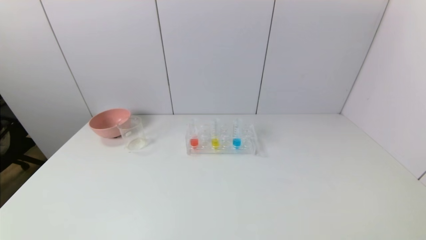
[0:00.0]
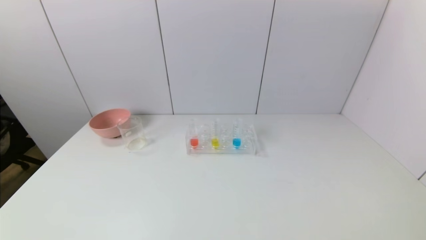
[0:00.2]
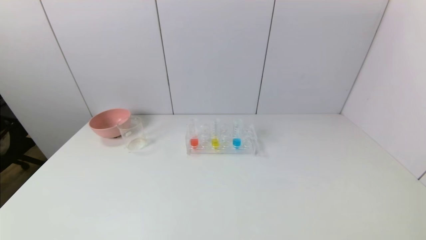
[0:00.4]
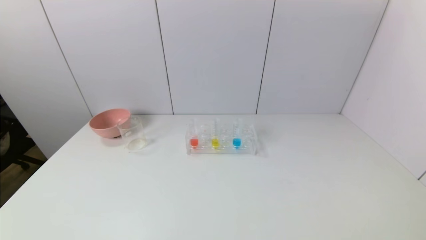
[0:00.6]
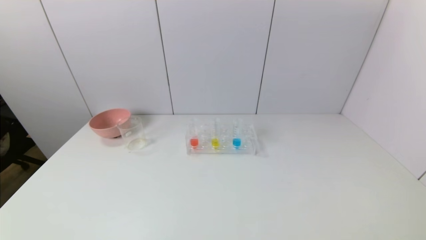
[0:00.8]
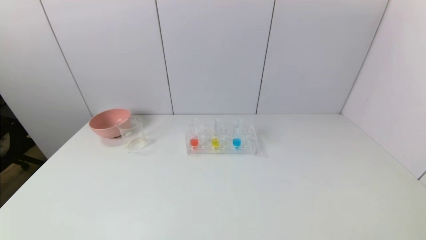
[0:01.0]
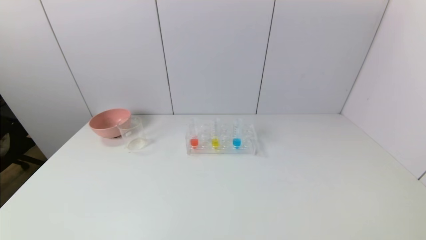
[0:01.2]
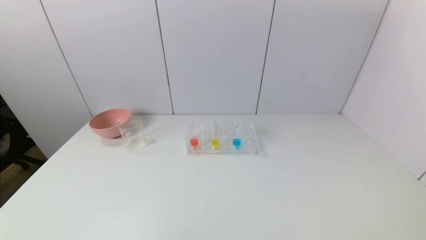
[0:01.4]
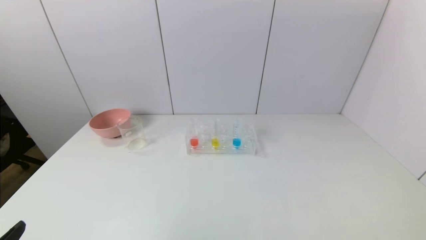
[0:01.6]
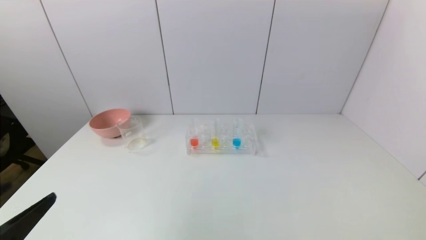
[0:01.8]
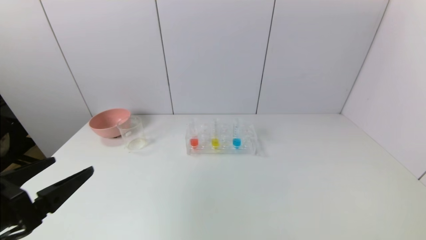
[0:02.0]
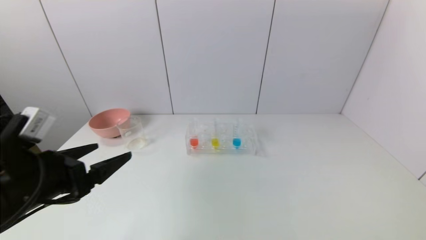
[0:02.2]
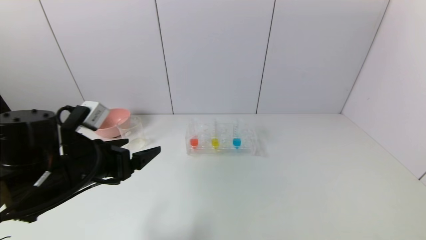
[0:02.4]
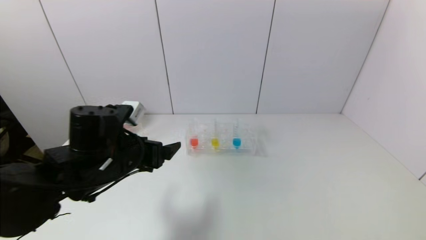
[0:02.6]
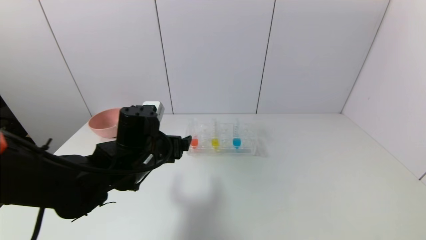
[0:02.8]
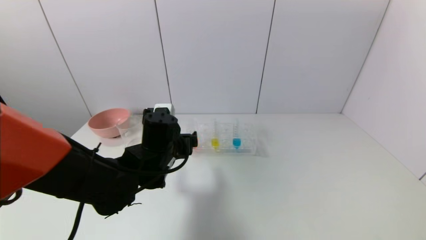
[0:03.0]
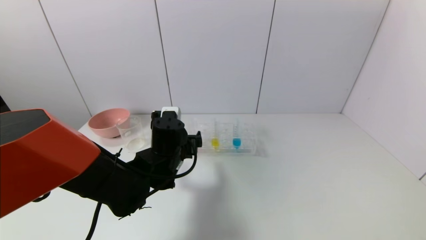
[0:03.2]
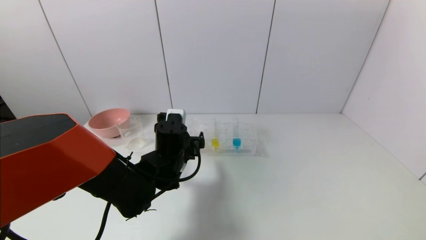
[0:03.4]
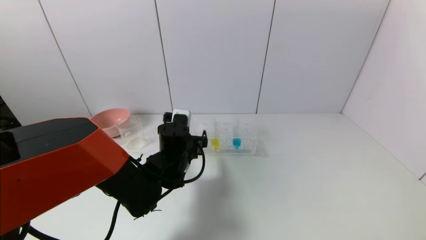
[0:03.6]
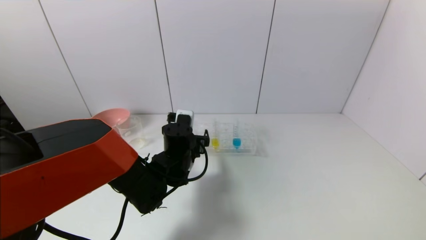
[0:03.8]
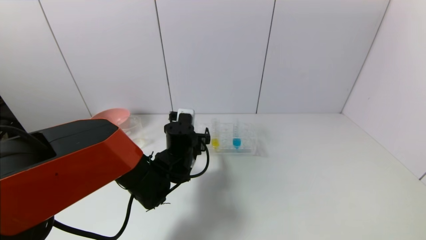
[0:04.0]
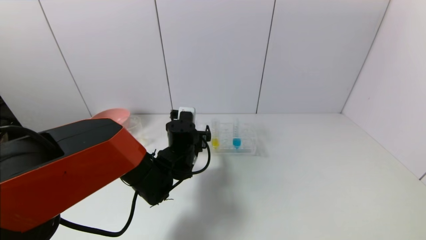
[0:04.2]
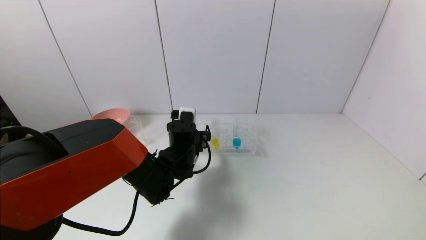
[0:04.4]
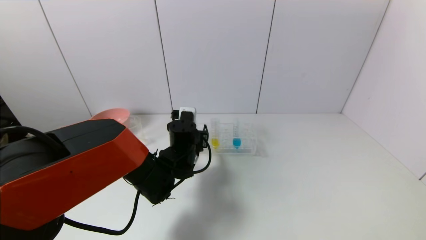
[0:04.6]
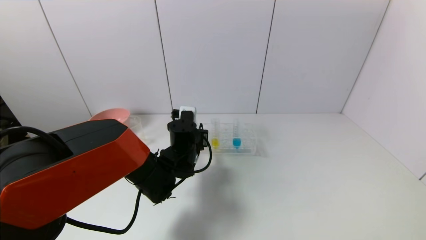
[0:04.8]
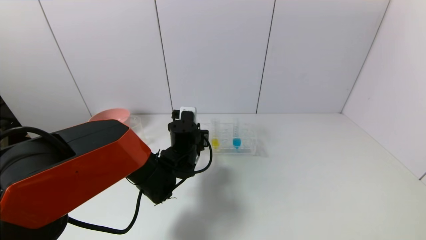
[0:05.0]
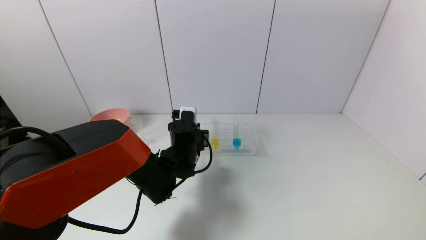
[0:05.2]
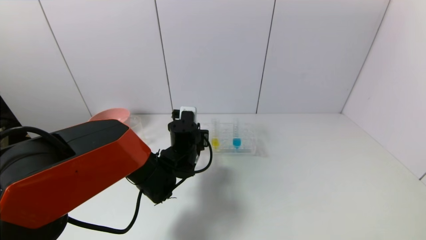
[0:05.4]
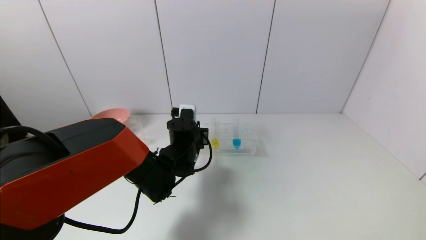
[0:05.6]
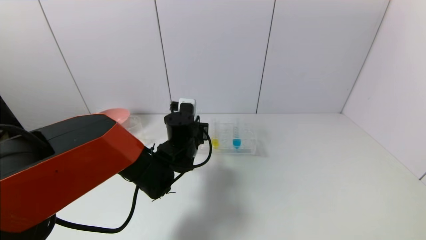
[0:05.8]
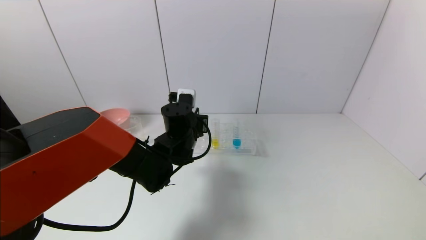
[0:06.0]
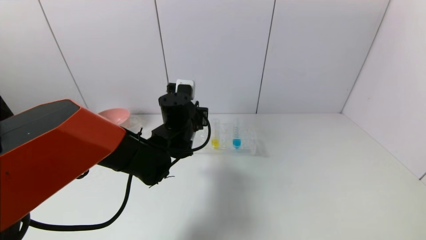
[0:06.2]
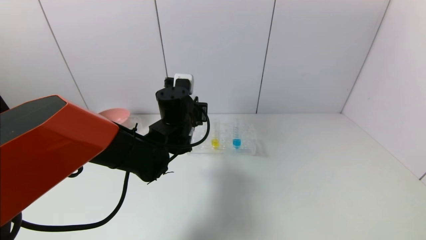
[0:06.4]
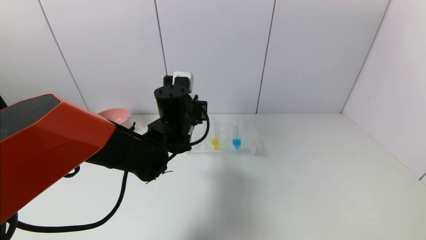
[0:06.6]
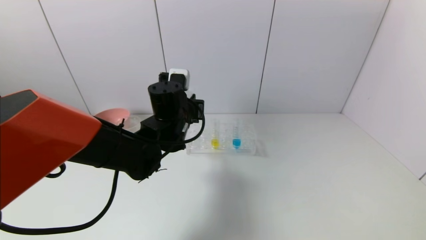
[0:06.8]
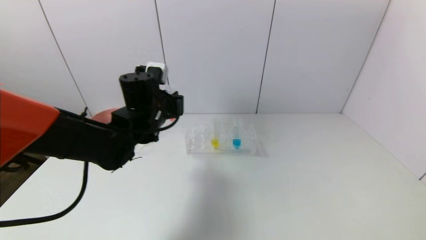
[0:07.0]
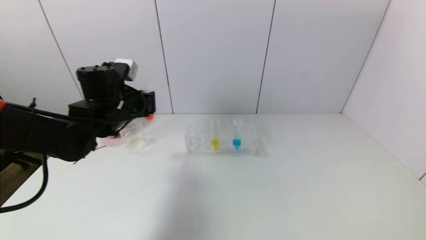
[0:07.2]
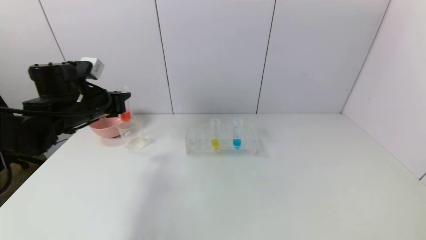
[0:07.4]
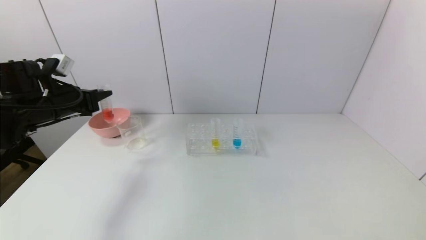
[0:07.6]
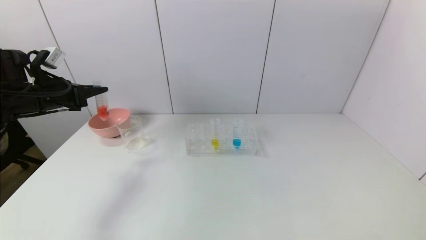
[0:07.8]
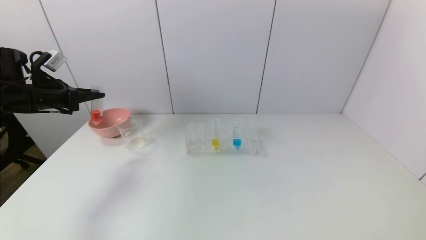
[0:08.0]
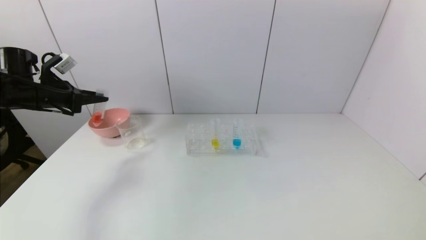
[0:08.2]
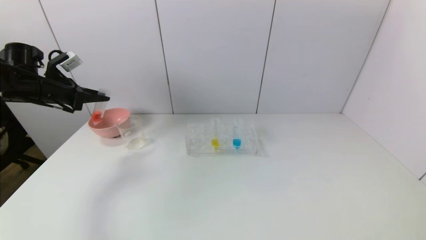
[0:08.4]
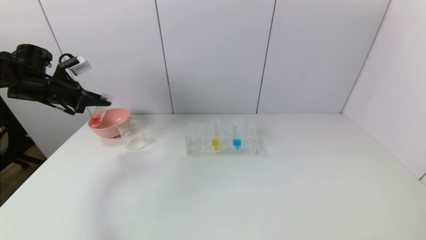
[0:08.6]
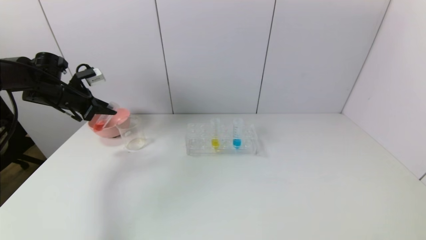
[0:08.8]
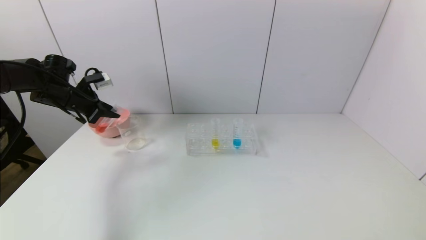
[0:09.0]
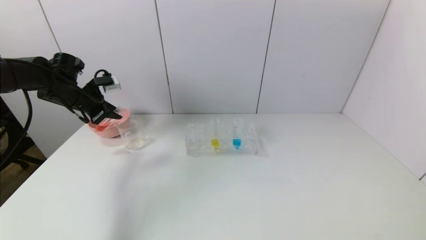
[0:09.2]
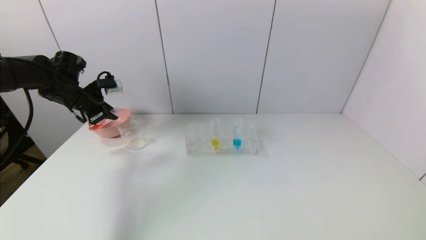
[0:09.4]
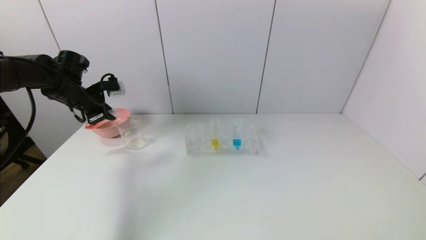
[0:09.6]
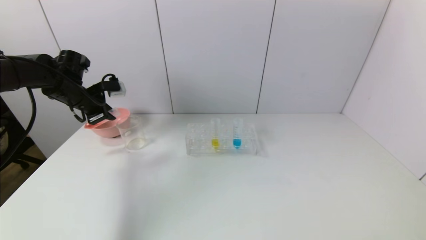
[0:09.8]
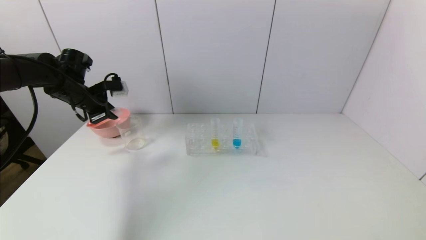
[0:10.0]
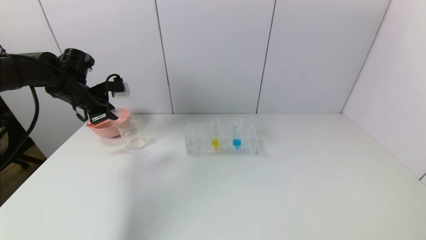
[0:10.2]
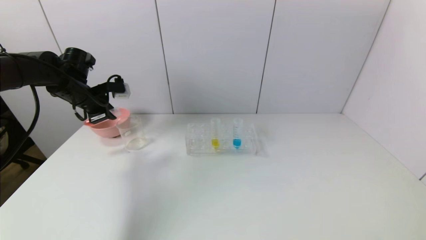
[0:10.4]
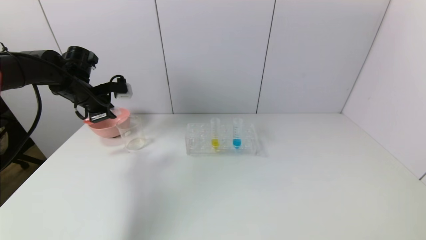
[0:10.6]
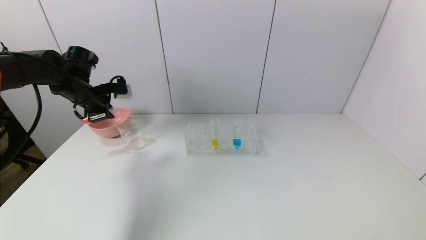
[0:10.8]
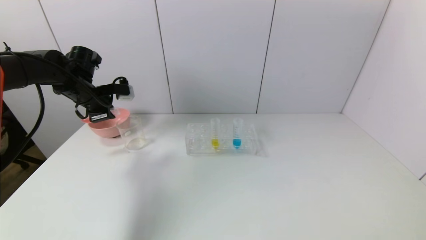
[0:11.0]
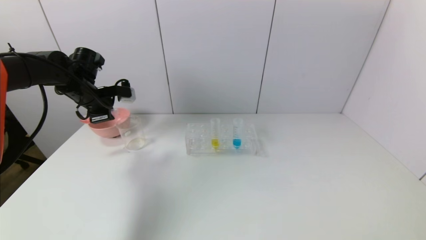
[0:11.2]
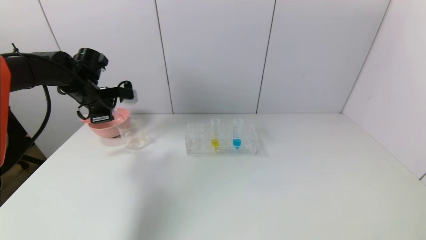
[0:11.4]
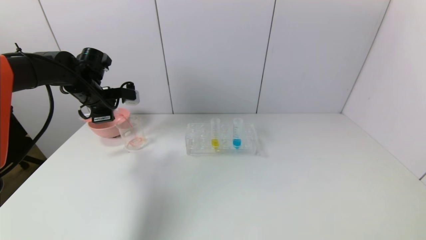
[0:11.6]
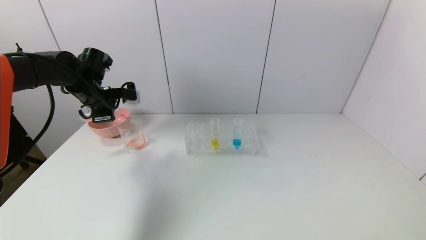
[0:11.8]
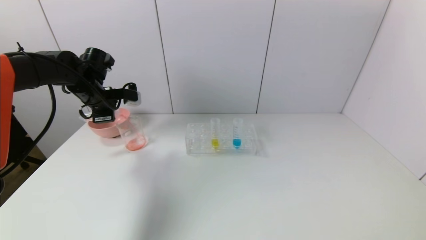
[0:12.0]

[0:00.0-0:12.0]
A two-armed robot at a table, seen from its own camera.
Task of the whole recording: pick up the test tube with yellow pigment and the test tube with red pigment by grippers and pour them into the beaker.
Step, 0:00.0 to 0:05.0: Grasp the red reagent with the left gripper.
0:01.6 to 0:03.0: The left gripper shifts about 35 cm forward and to the right.
0:03.0 to 0:04.4: The left gripper shifts about 5 cm forward.
0:04.4 to 0:06.0: The left gripper closes its fingers.
0:06.0 to 0:07.6: The left gripper travels to the left by some 30 cm.
0:07.6 to 0:09.0: The left gripper travels forward by approximately 10 cm.
0:10.4 to 0:12.0: The grippers make only small movements.

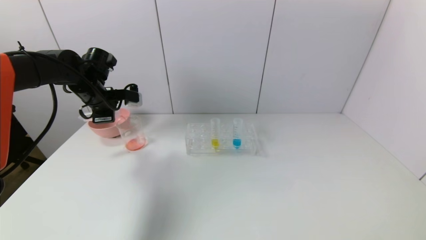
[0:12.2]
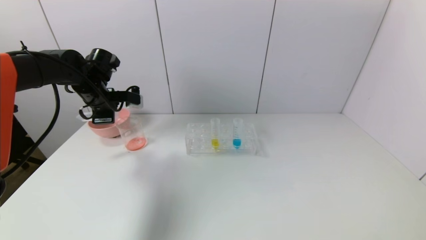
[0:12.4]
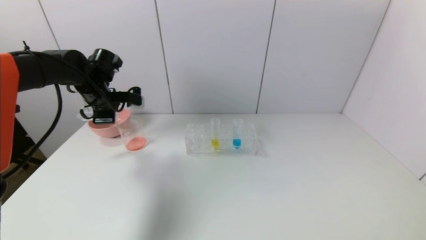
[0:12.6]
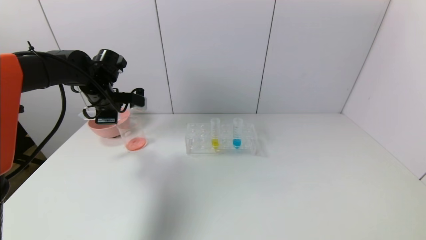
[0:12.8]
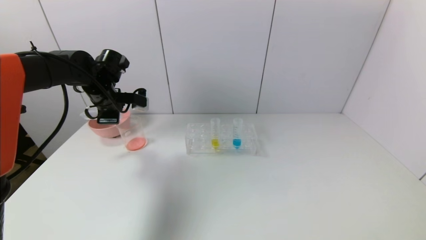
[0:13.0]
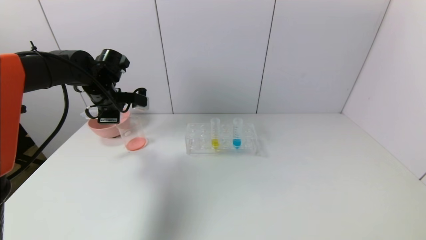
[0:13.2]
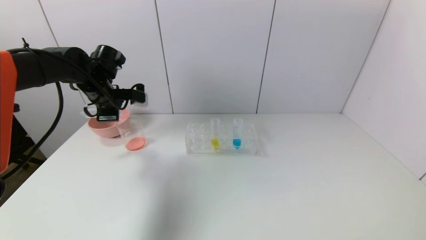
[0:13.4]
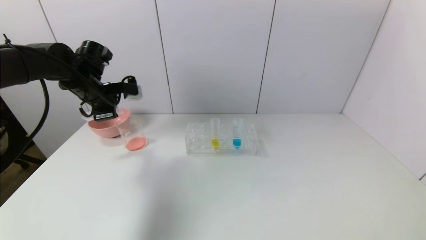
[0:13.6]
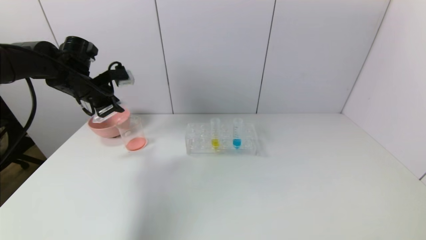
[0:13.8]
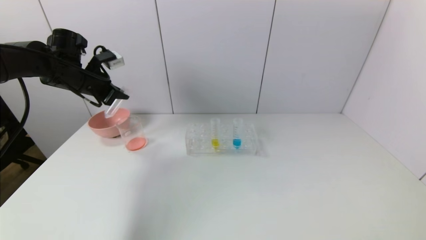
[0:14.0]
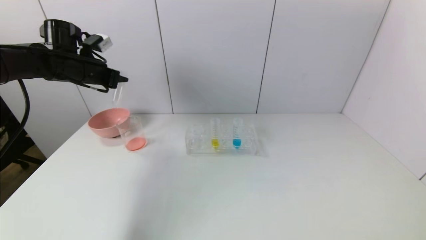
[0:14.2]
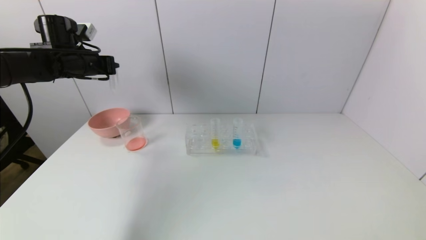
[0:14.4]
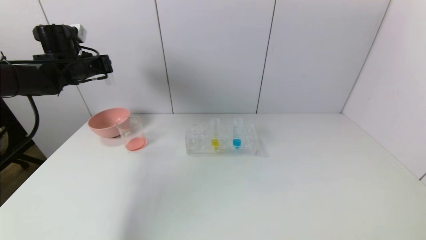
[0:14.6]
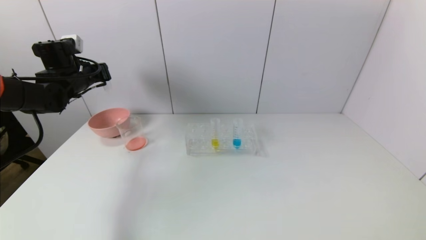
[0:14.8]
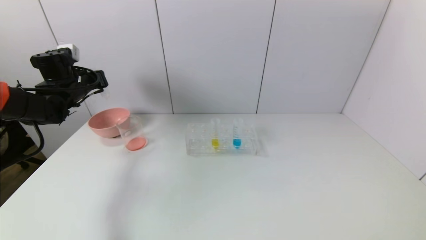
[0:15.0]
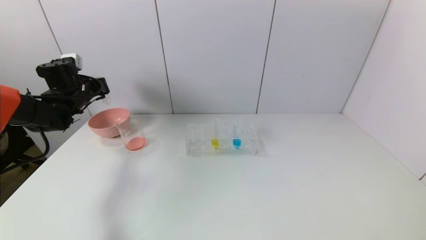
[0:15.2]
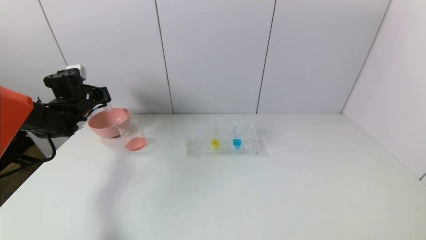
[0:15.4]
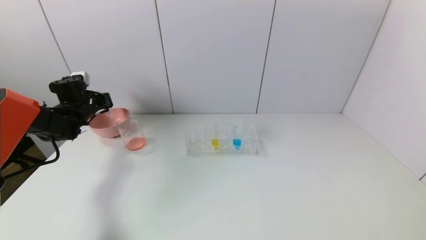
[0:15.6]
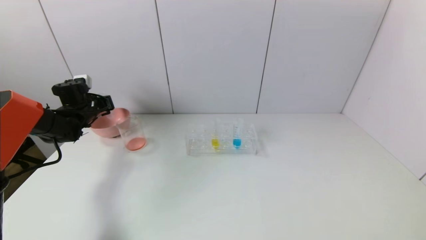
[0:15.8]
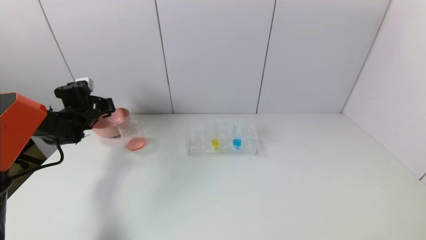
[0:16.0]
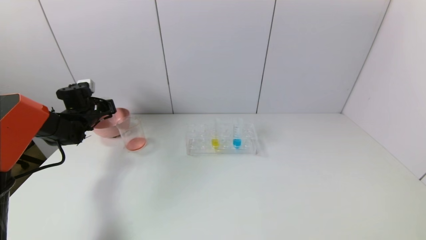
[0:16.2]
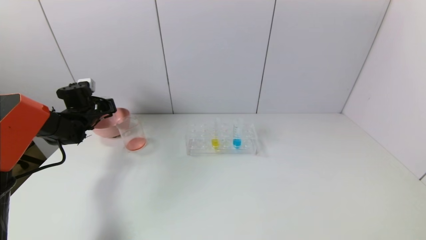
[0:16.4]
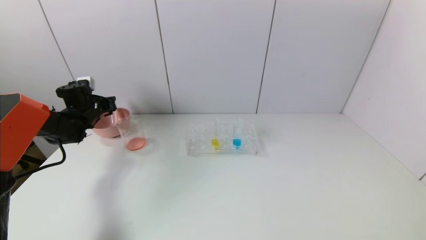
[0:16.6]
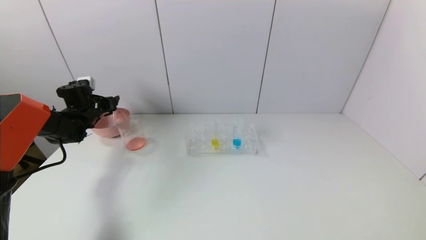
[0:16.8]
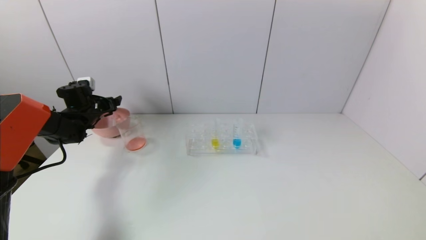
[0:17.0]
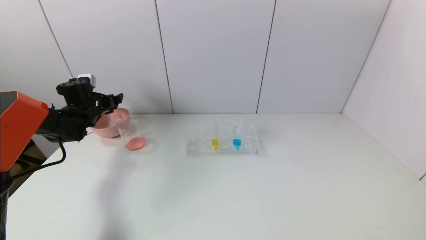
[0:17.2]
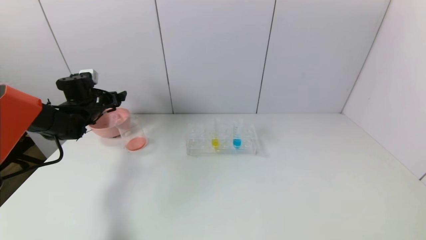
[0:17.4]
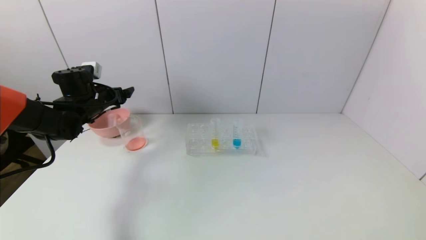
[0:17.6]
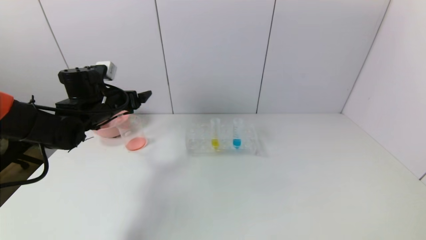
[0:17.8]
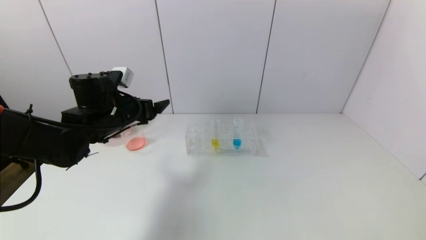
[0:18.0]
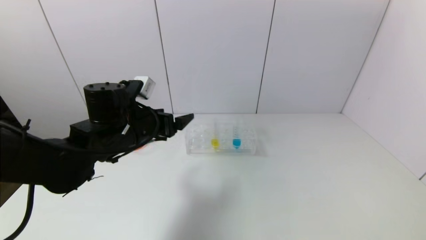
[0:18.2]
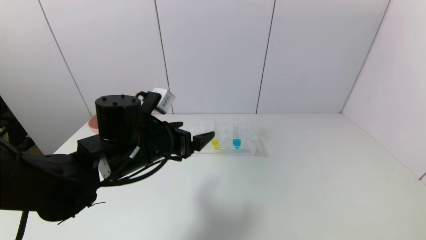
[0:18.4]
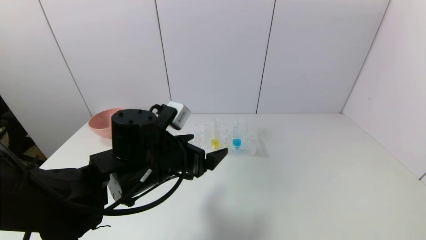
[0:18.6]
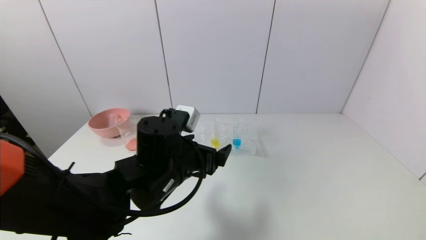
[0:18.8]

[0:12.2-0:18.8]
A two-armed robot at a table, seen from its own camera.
Task of the whole recording: pick up the test tube with yellow pigment and the test tube with red pigment by grippers and pour them into the beaker.
Step, 0:13.2 to 0:16.8: Place the test tube into the pink bowl with the left gripper.
0:13.8 to 0:15.4: The left gripper is displaced downward, to the left and forward by some 10 cm.
0:15.4 to 0:17.2: The left gripper opens its fingers.
0:17.2 to 0:18.8: The left gripper moves to the right and backward, roughly 35 cm.
